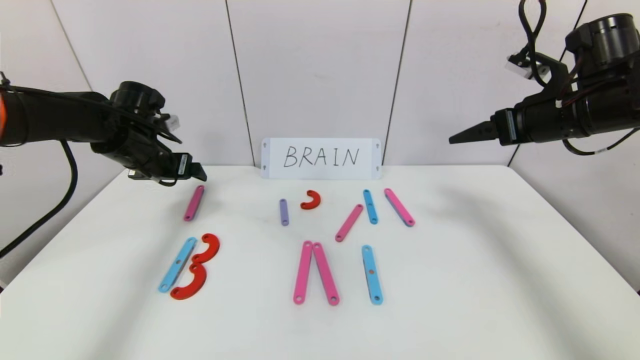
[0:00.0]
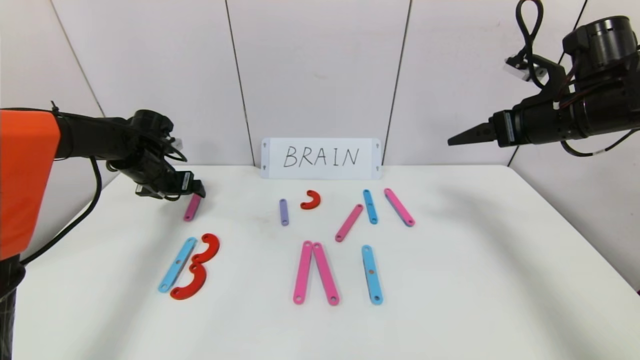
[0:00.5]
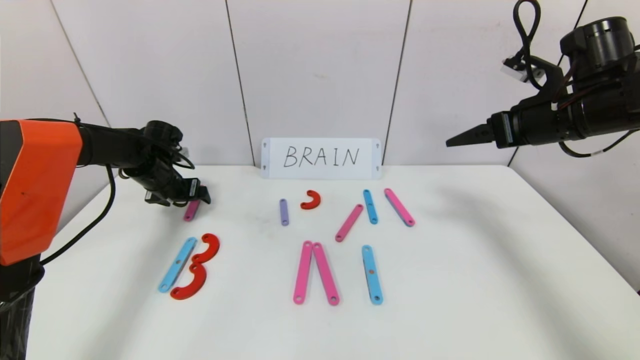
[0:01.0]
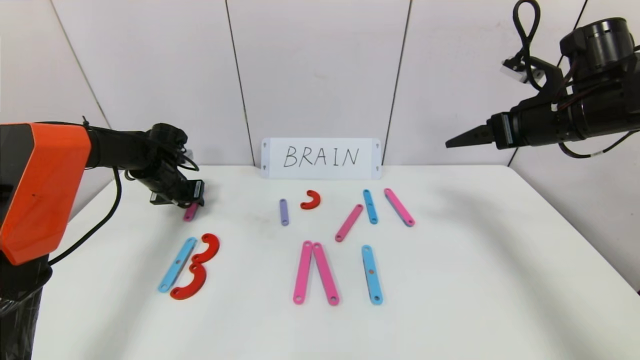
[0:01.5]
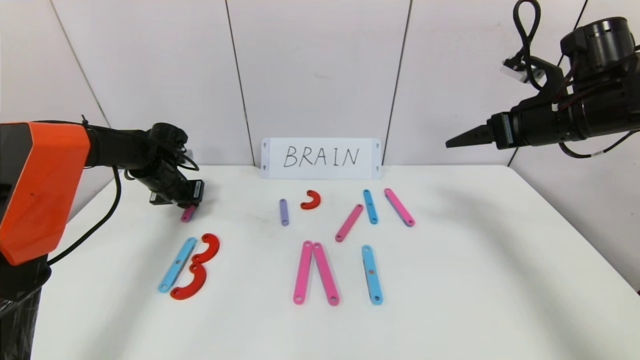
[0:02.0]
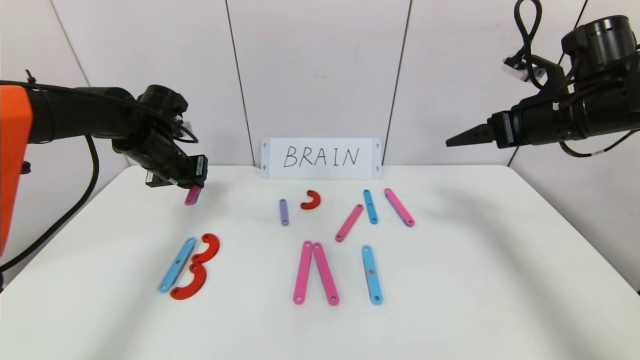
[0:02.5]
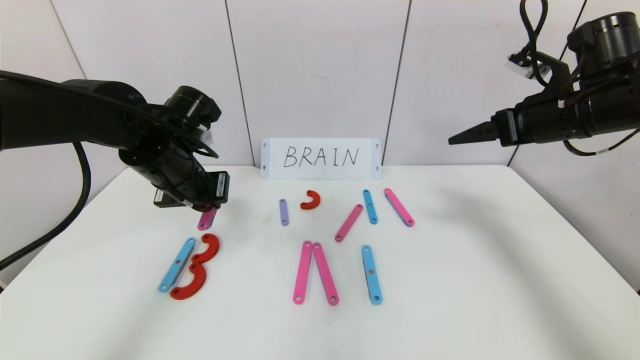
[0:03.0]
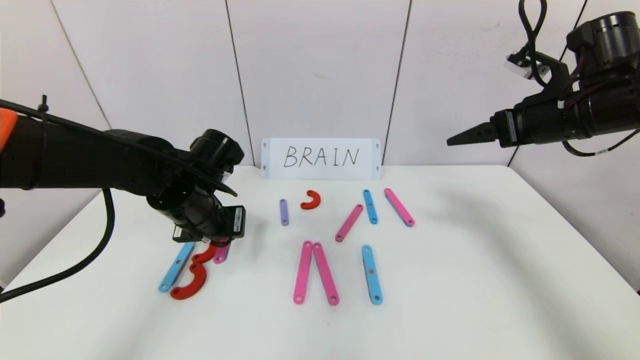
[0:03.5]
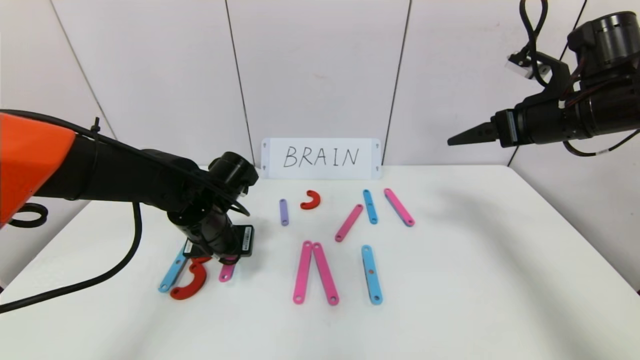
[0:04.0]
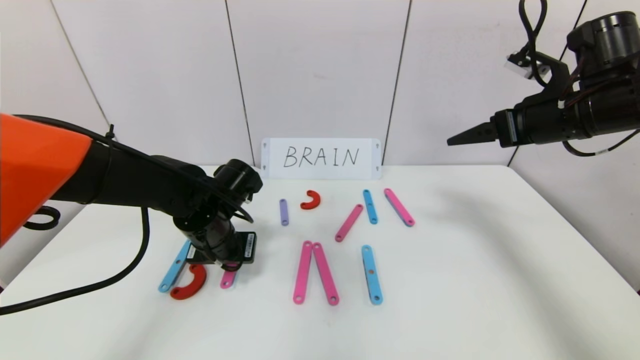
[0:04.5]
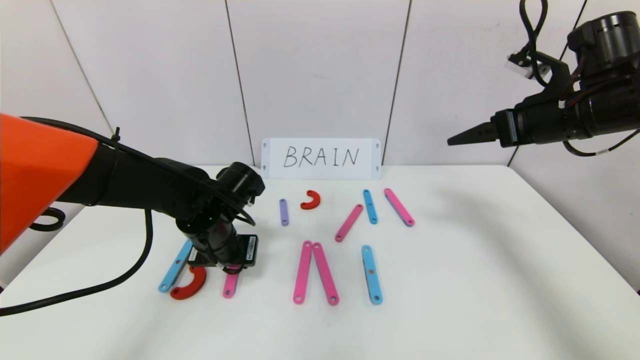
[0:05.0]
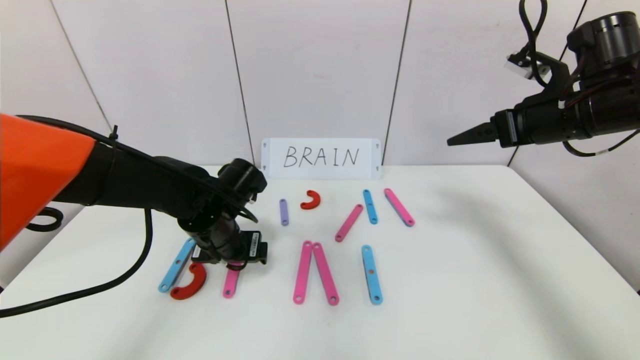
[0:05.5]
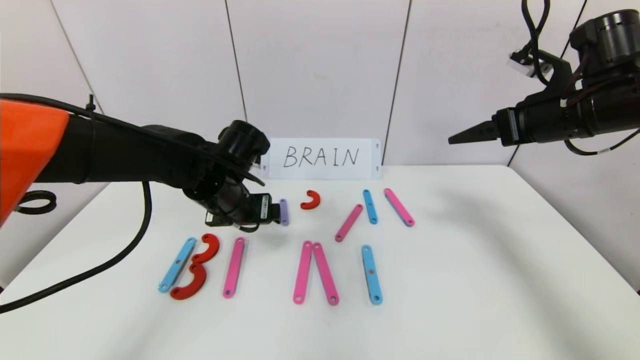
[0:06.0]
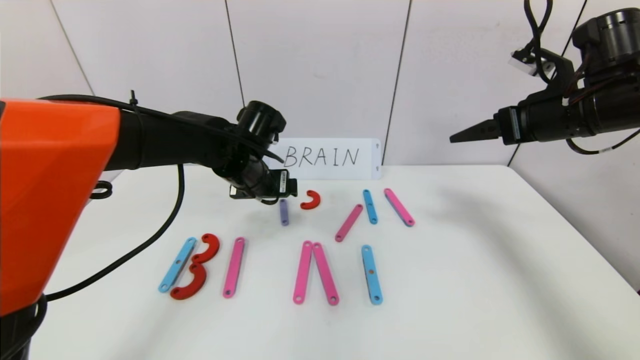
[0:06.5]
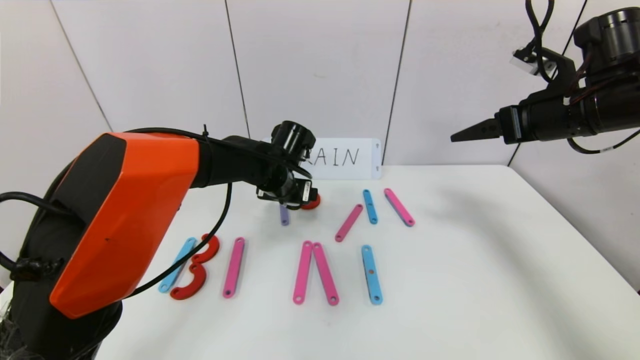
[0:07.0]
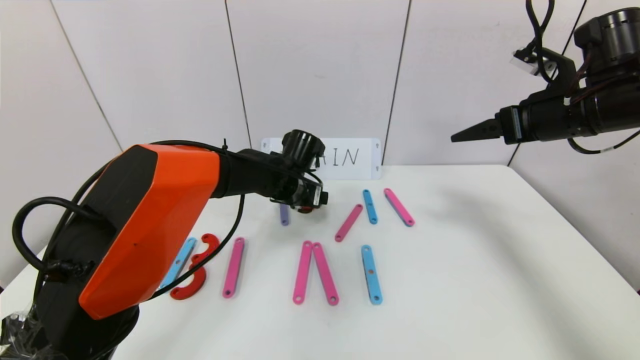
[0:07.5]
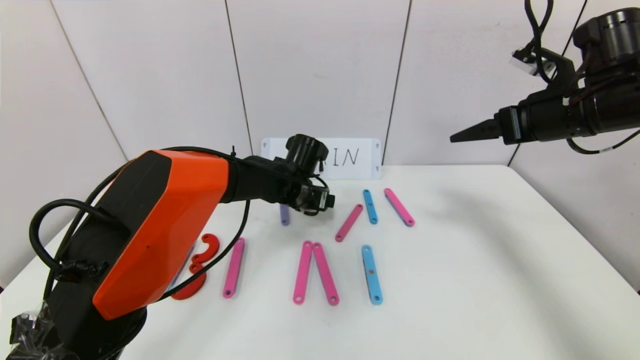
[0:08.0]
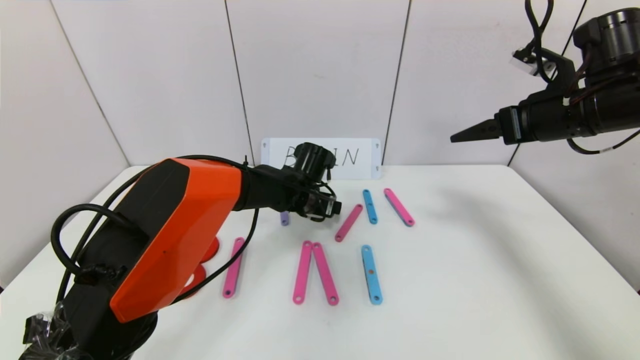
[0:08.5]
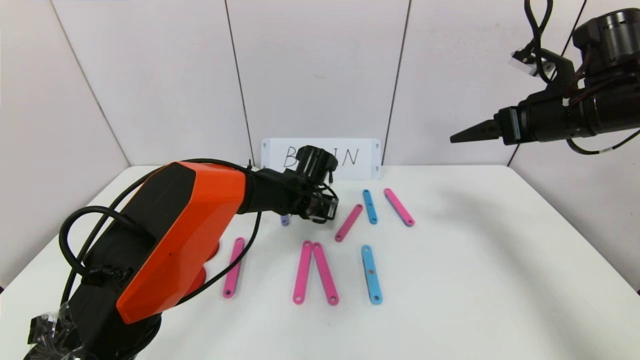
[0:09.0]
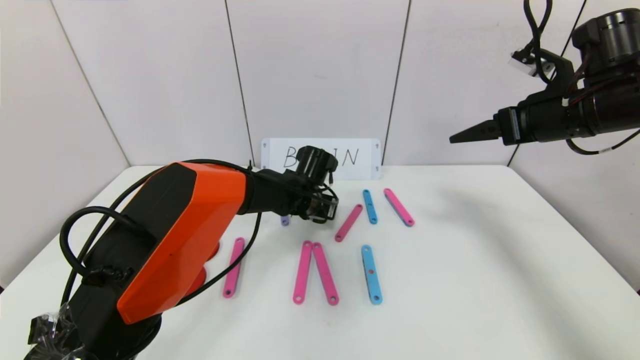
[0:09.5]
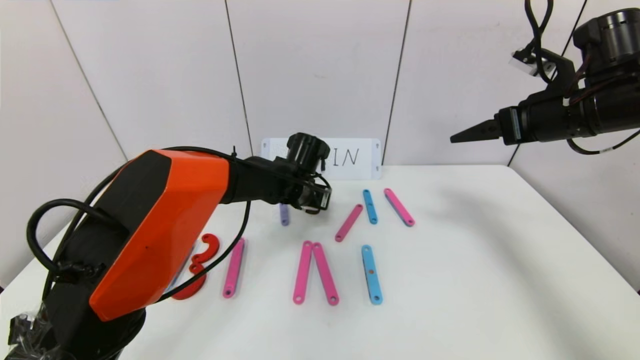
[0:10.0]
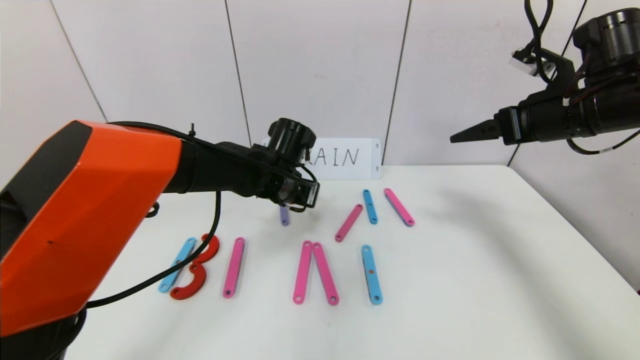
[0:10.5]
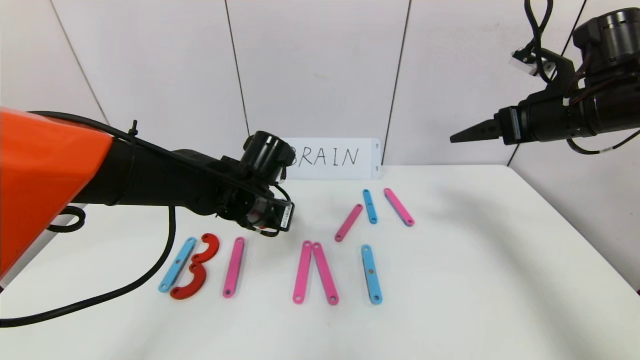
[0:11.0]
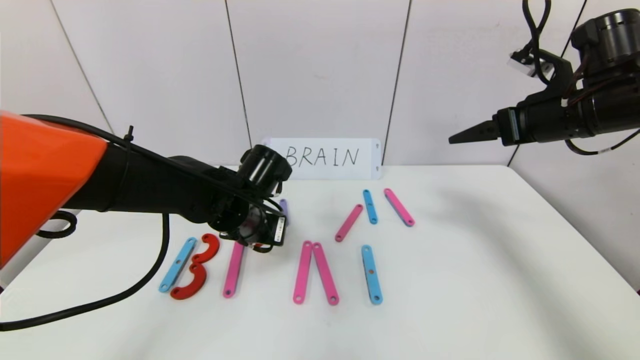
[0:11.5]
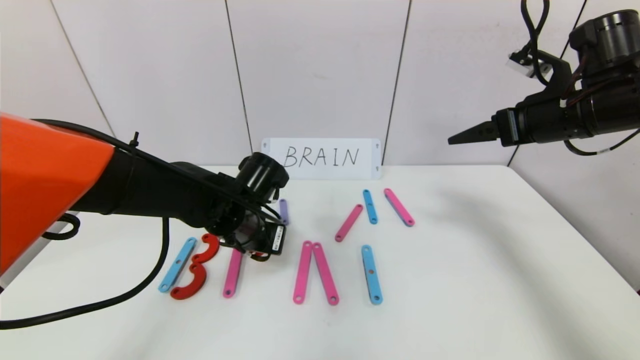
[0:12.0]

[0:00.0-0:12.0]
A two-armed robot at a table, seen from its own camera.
Task of the whole recording: rearrange the word baai as brain.
0:00.0 to 0:02.0: The left gripper shifts some 10 cm downward and forward, and closes.
0:02.0 to 0:04.0: The left gripper shifts roughly 20 cm to the right and backward.
0:04.0 to 0:06.0: The left gripper opens its fingers.
0:06.0 to 0:08.0: The left gripper is displaced to the right, forward and downward by about 15 cm.
0:08.0 to 0:10.0: The left gripper closes.
0:10.0 to 0:12.0: The left gripper travels backward and to the left by approximately 15 cm.

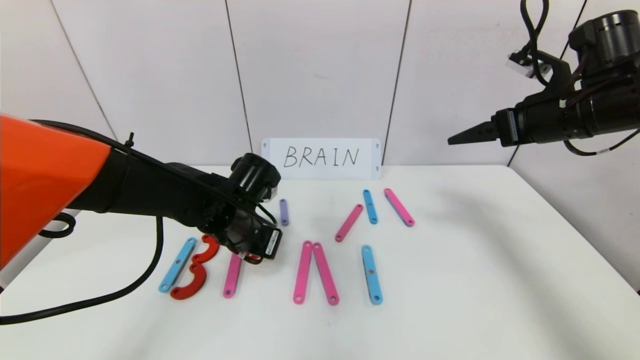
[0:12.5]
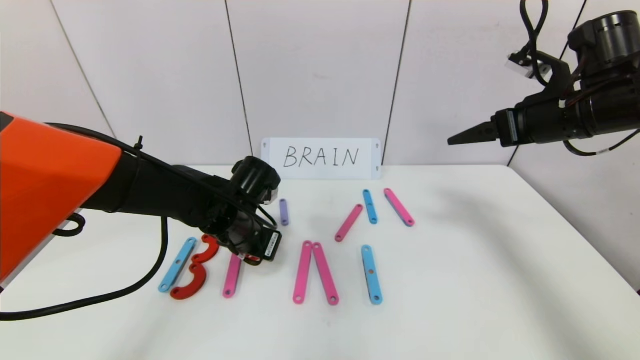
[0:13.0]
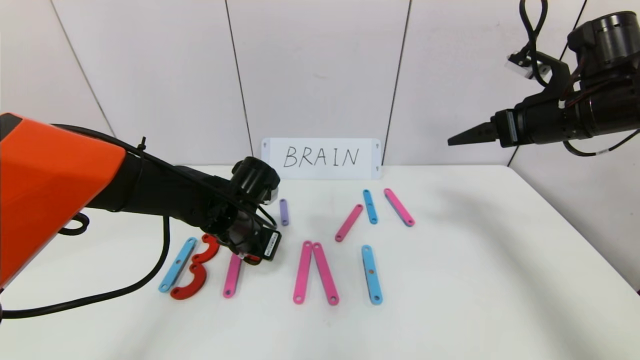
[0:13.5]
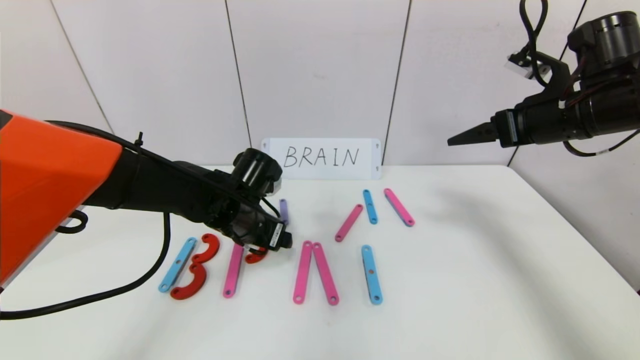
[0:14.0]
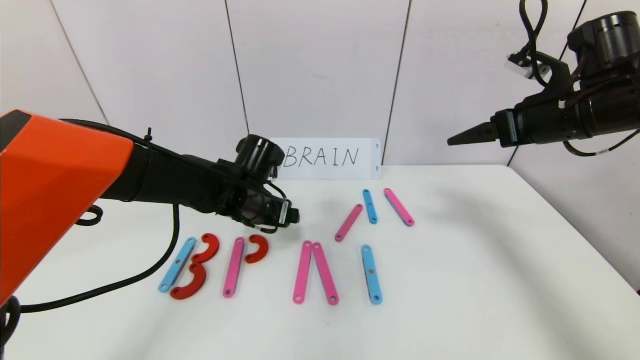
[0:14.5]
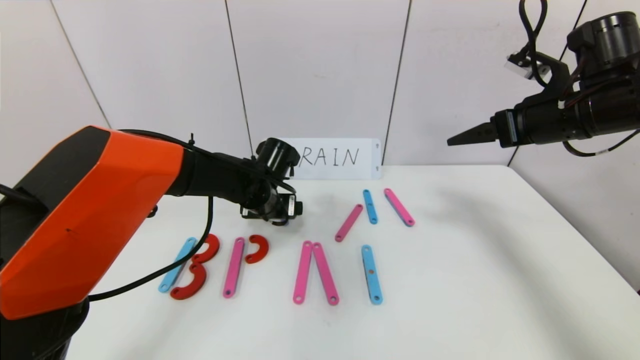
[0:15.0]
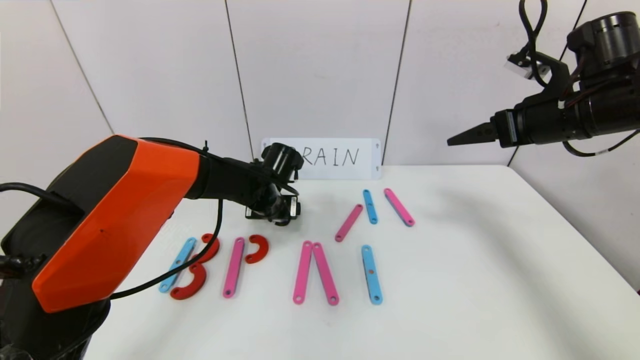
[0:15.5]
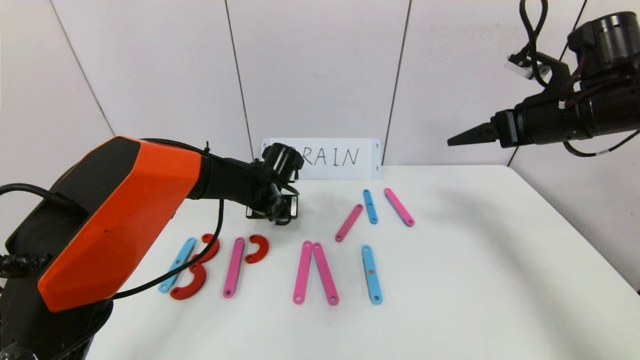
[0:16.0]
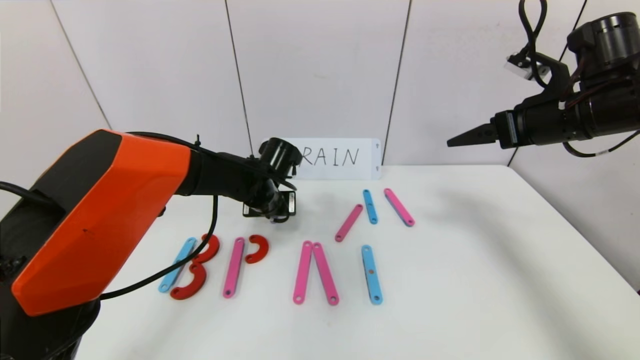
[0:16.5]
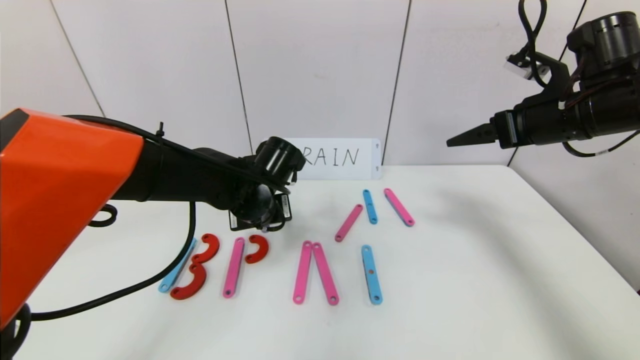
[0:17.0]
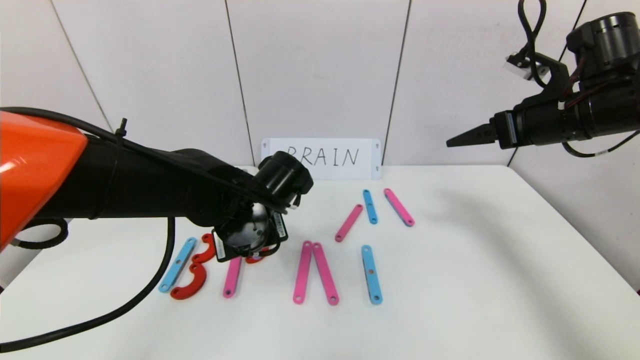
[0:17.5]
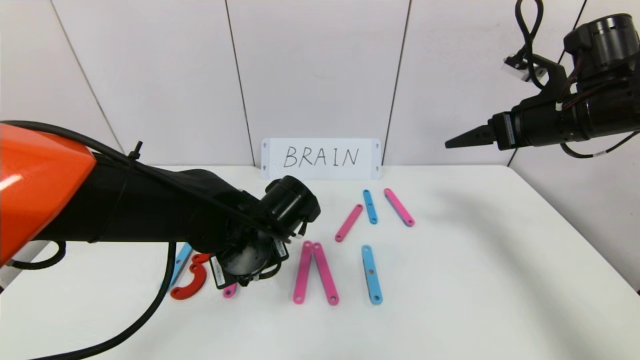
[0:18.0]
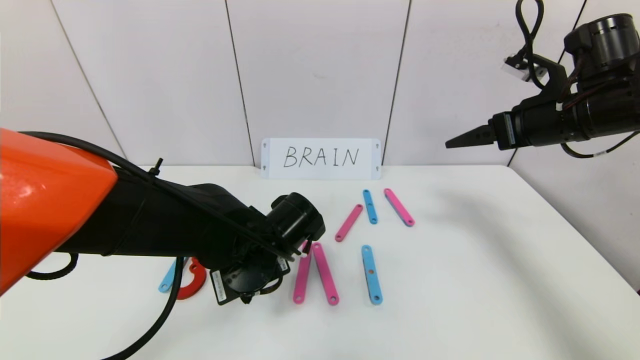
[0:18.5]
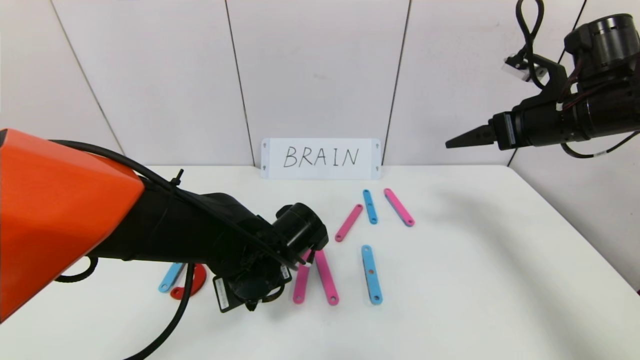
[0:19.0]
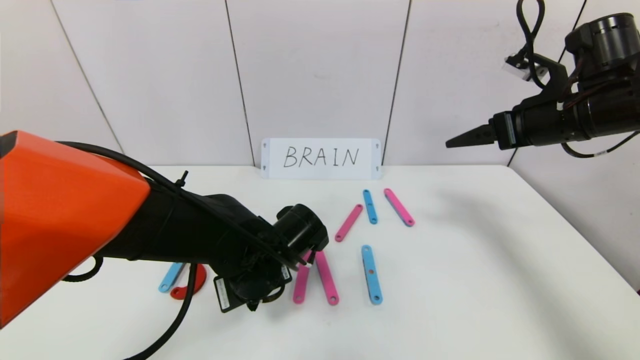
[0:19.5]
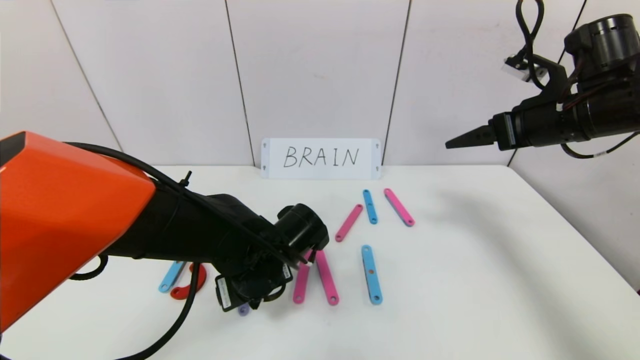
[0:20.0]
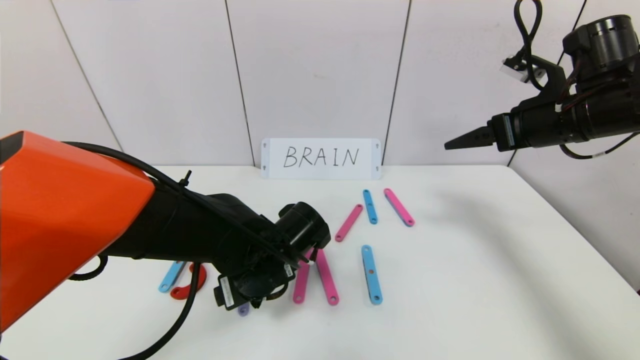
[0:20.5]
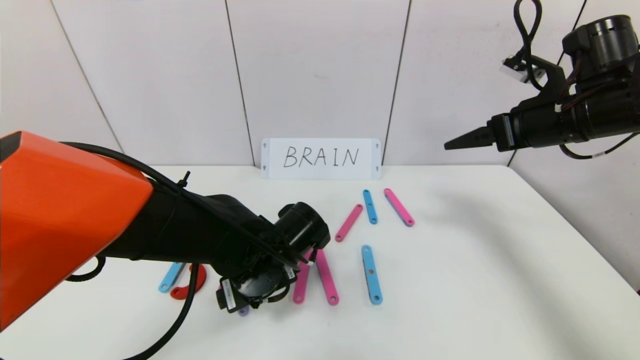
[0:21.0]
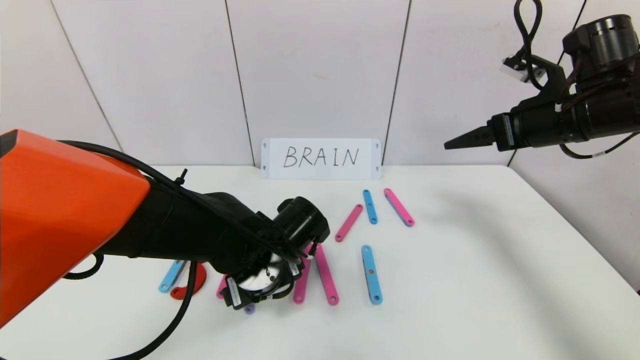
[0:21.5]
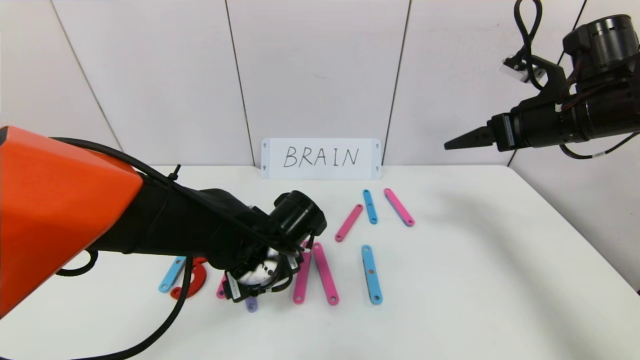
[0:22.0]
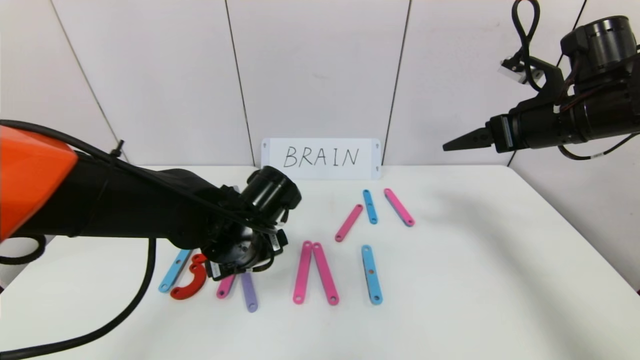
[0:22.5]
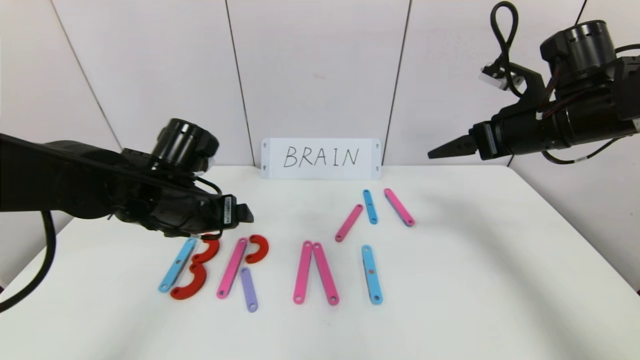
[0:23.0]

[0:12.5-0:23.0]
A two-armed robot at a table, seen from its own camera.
Task of the whole recording: rearrange the word baai as brain.
Step, 0:12.5 to 0:22.5: Place the character R between first character B and third character A.
0:12.5 to 0:14.5: The left gripper opens.
0:14.5 to 0:16.5: The left gripper changes place by about 5 cm, and closes.
0:16.5 to 0:19.0: The left gripper travels backward by about 15 cm.
0:19.0 to 0:21.0: The left gripper opens its fingers.
0:21.0 to 0:23.0: The left gripper moves to the left and upward, about 15 cm.
